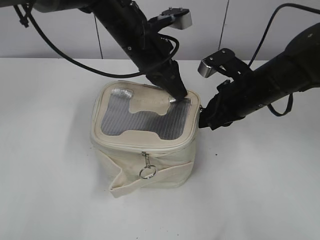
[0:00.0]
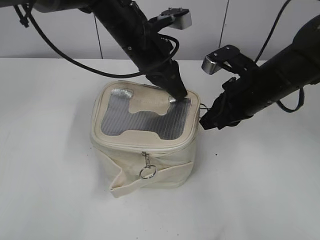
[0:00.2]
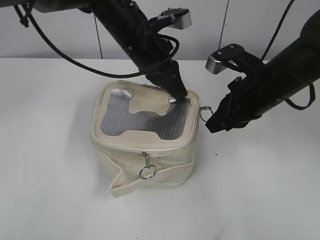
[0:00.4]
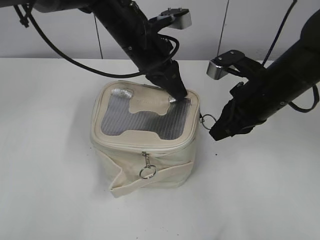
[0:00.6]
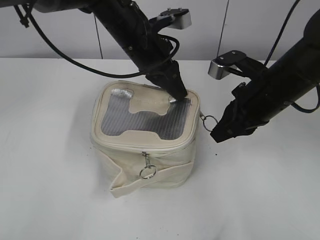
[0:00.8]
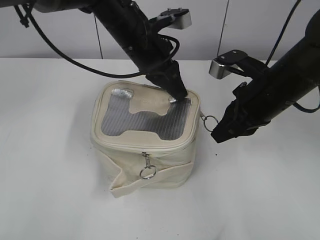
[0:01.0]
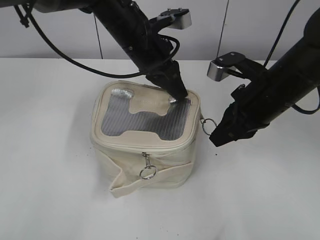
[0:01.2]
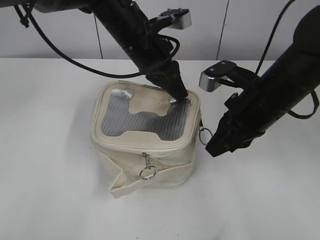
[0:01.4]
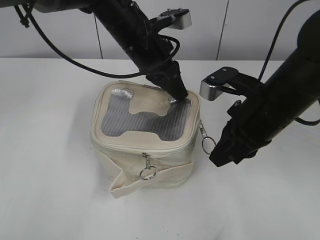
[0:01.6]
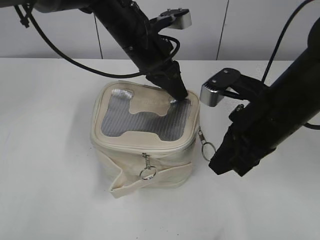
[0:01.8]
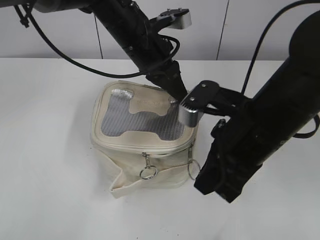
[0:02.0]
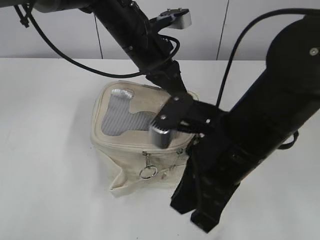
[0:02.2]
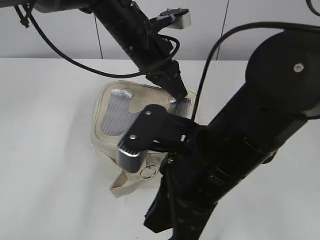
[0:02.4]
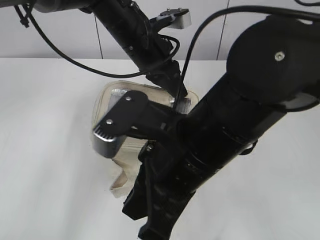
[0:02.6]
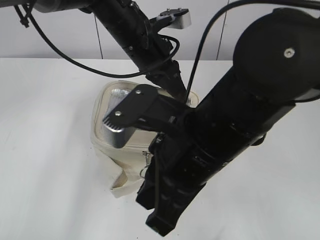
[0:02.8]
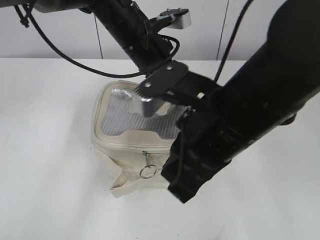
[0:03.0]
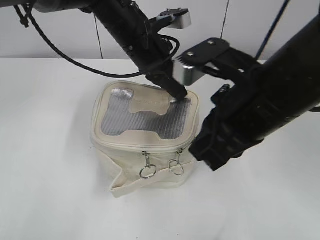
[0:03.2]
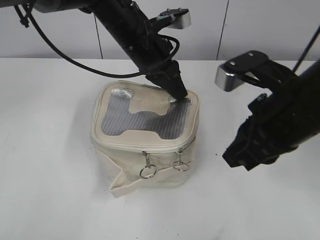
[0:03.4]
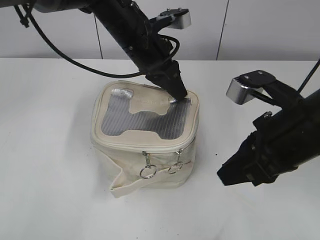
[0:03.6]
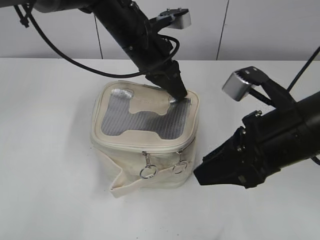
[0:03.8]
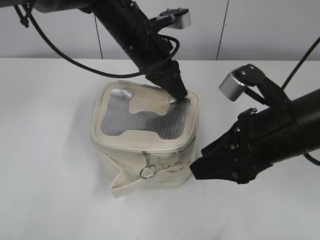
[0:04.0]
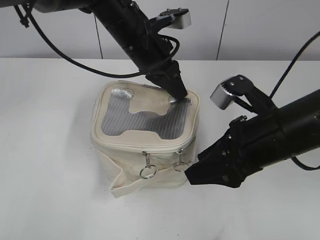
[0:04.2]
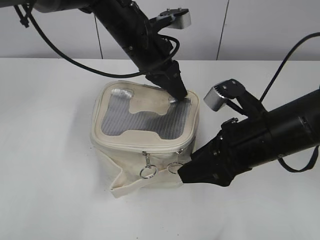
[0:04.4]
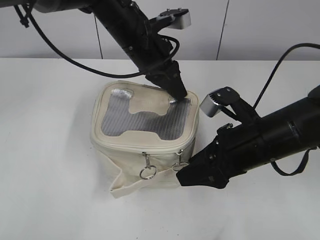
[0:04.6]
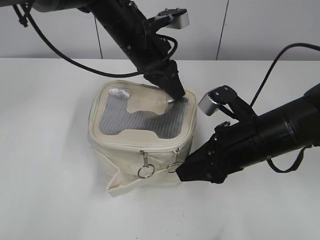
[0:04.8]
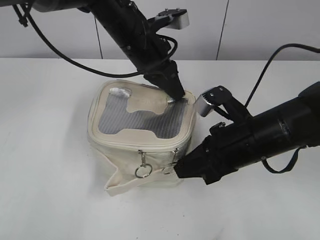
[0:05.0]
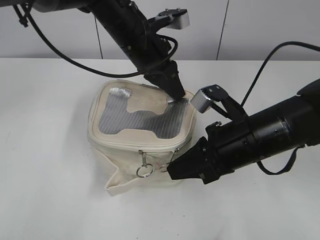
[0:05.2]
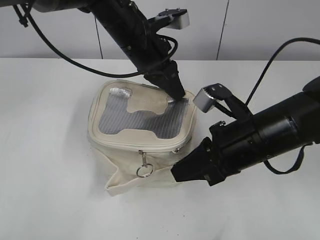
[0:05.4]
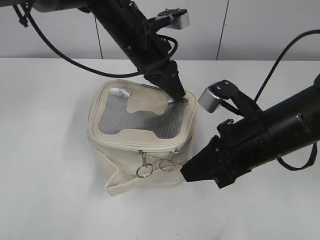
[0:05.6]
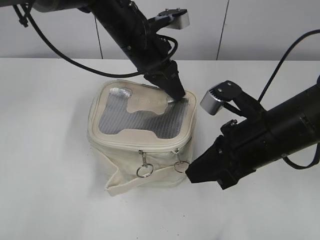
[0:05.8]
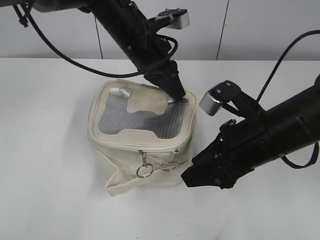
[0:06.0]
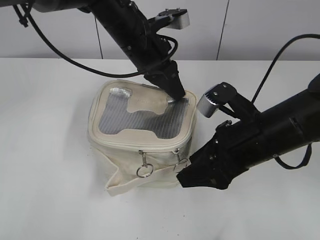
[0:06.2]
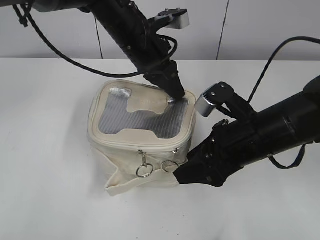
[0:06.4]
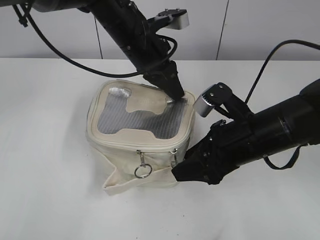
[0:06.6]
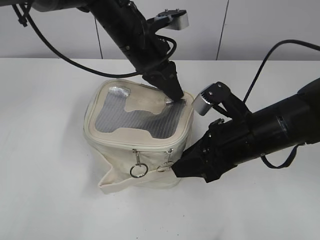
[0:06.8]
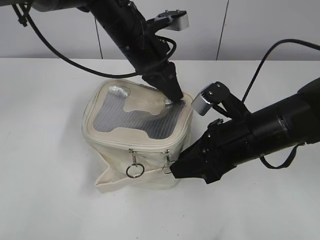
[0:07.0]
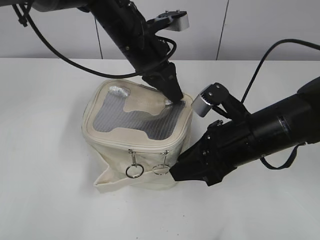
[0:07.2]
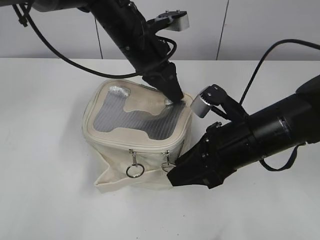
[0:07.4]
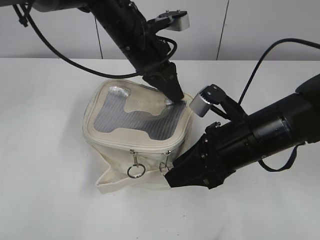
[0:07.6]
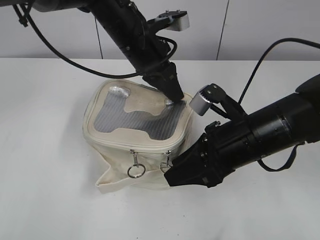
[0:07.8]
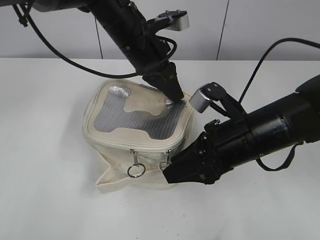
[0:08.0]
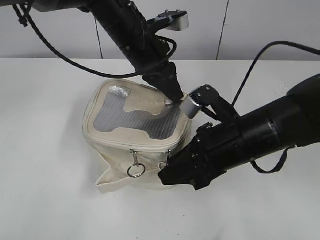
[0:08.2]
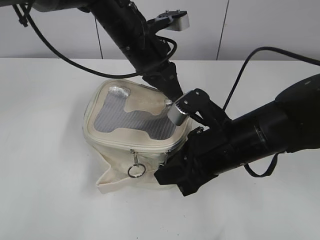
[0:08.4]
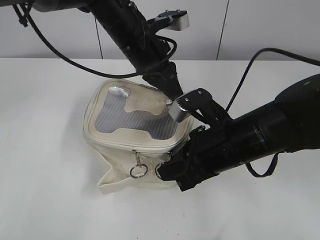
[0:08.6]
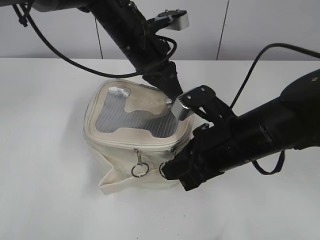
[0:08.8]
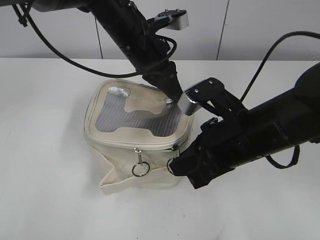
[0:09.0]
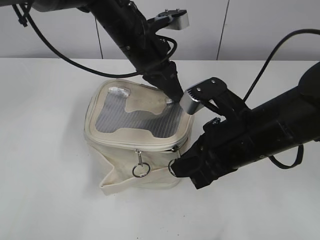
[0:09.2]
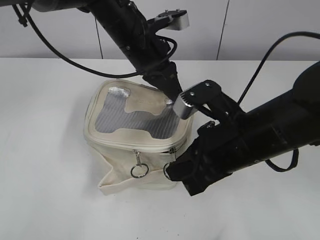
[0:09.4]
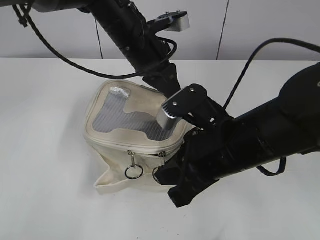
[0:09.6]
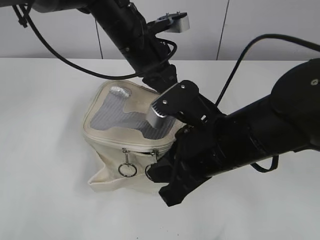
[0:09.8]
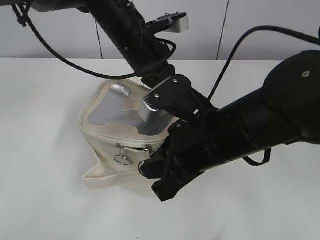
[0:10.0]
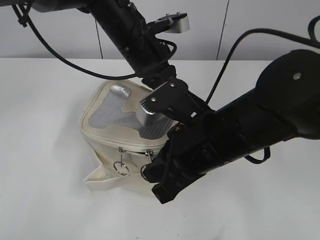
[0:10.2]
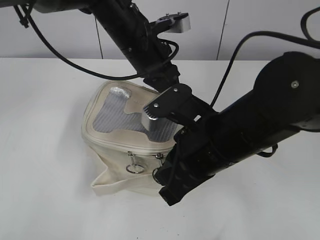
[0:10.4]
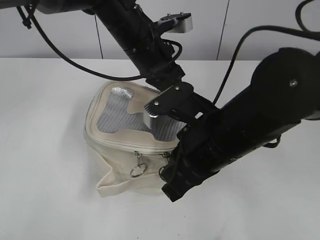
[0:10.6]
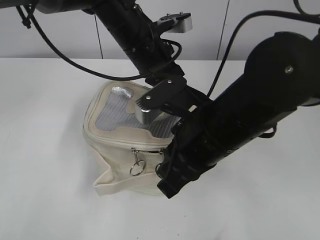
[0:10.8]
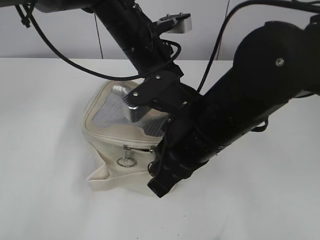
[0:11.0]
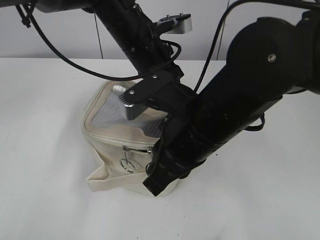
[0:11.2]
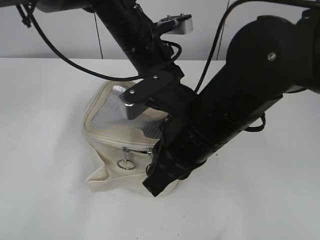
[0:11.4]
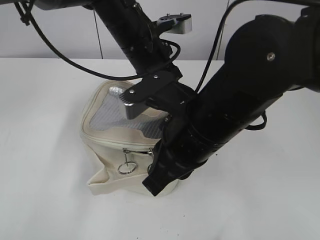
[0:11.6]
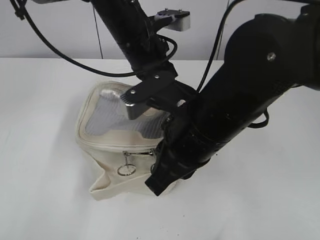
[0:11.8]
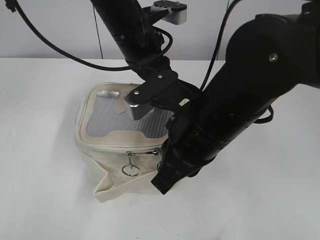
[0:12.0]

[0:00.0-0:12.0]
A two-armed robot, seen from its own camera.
0:00.0 to 0:01.6: The right gripper travels backward by about 5 cm.
0:01.6 to 0:03.0: The right gripper is displaced to the left, backward and upward by roughly 10 cm.
0:03.0 to 0:04.4: The right gripper heads downward and to the right, covering roughly 10 cm, and opens its fingers.
0:04.4 to 0:06.0: The right gripper closes, then reopens.
0:06.0 to 0:07.6: The grippers stay close to where they were, moving slightly.
0:07.6 to 0:09.0: The right gripper closes up.
0:09.0 to 0:10.4: There are only small adjustments of the grippers.

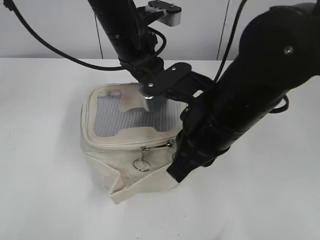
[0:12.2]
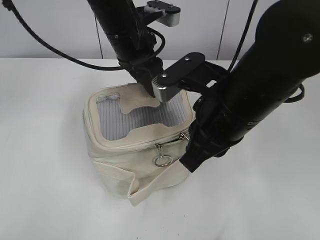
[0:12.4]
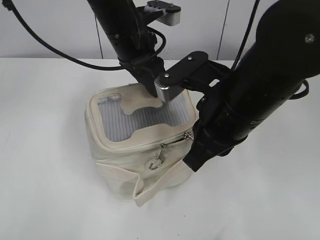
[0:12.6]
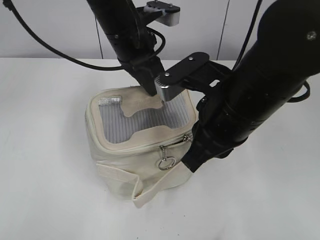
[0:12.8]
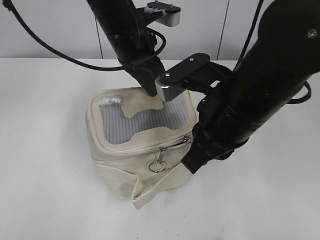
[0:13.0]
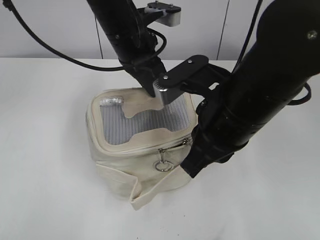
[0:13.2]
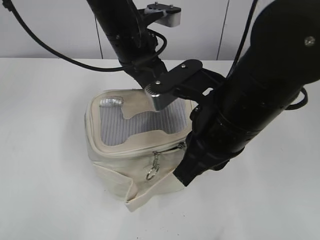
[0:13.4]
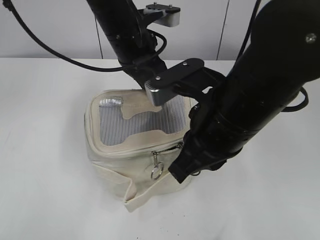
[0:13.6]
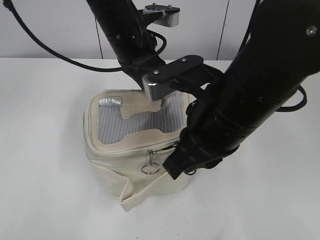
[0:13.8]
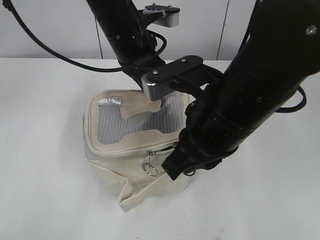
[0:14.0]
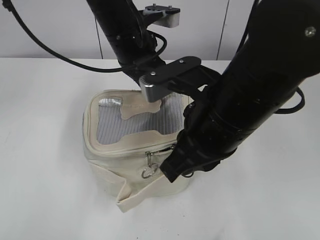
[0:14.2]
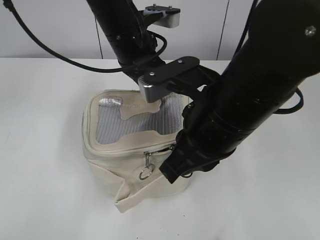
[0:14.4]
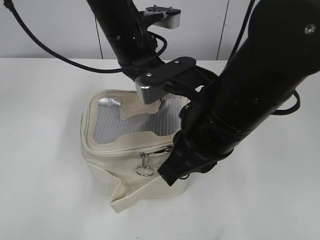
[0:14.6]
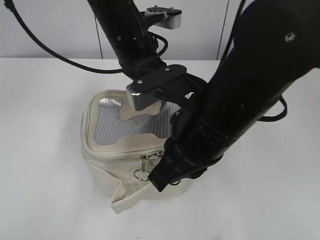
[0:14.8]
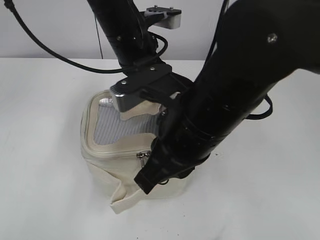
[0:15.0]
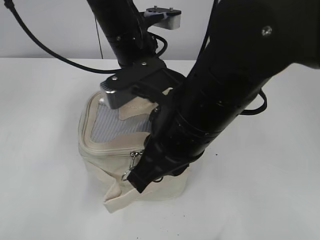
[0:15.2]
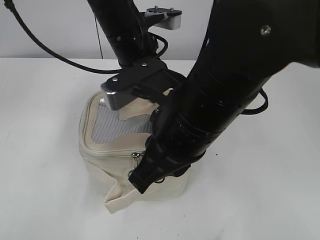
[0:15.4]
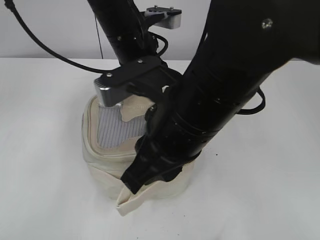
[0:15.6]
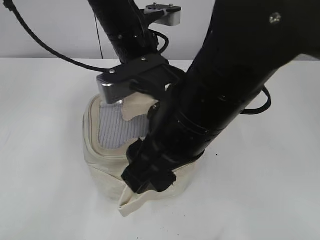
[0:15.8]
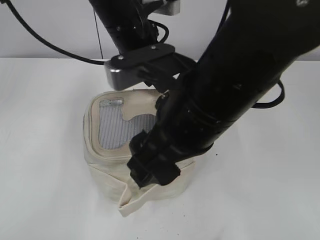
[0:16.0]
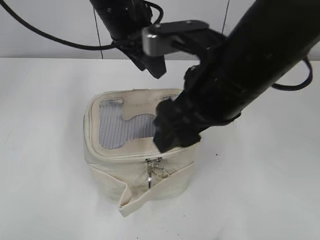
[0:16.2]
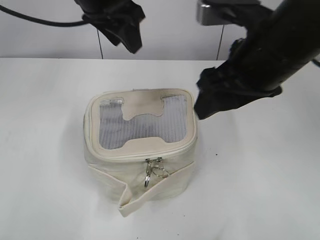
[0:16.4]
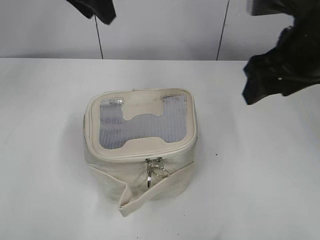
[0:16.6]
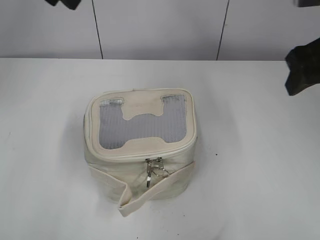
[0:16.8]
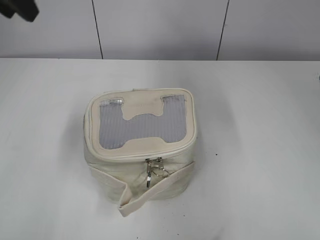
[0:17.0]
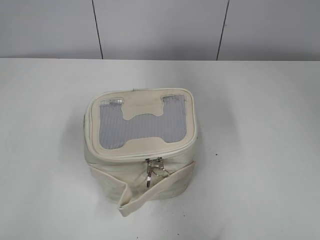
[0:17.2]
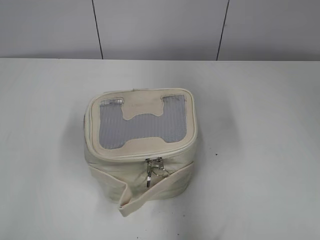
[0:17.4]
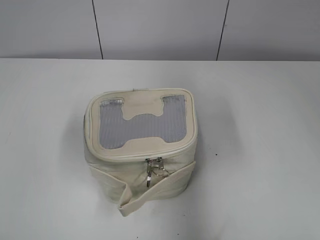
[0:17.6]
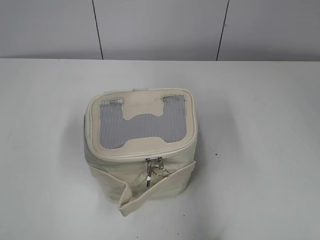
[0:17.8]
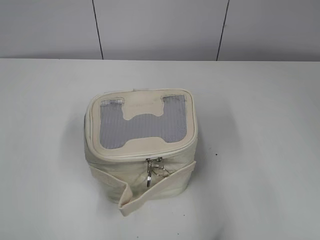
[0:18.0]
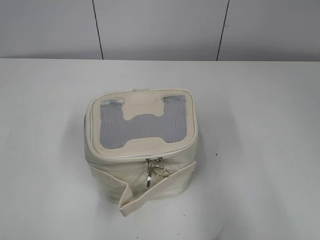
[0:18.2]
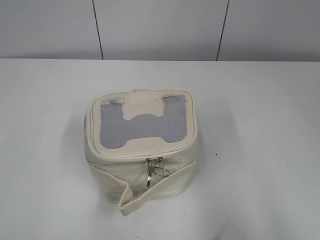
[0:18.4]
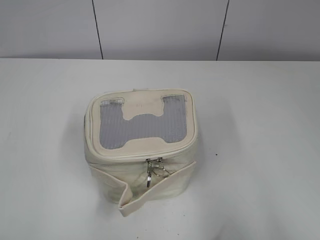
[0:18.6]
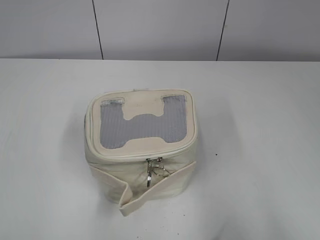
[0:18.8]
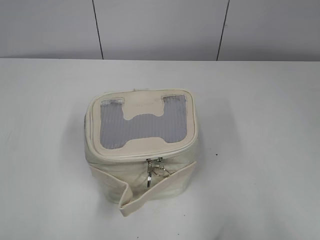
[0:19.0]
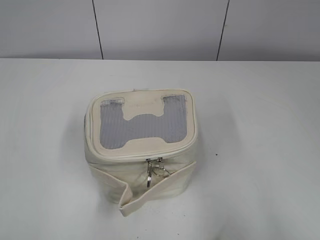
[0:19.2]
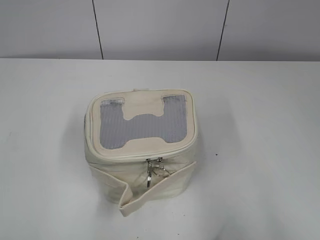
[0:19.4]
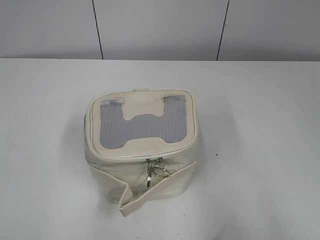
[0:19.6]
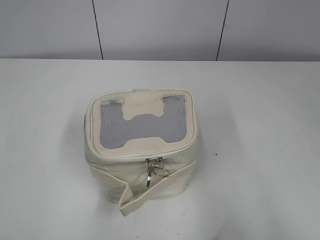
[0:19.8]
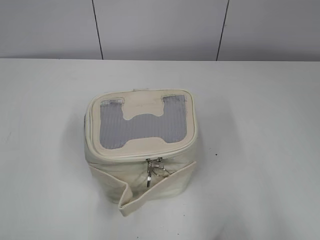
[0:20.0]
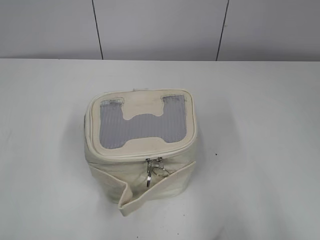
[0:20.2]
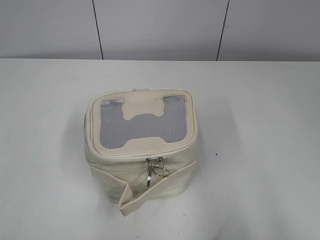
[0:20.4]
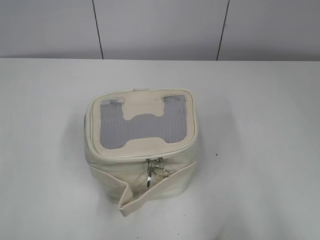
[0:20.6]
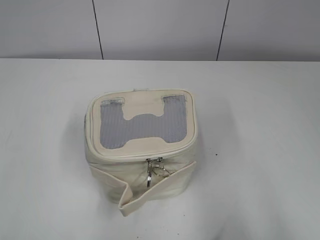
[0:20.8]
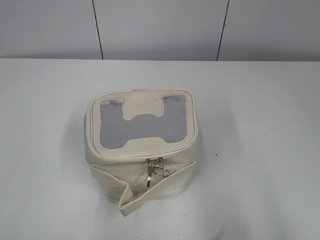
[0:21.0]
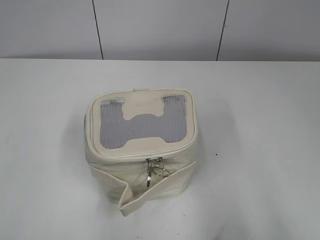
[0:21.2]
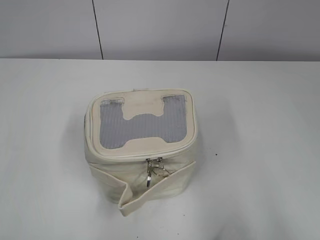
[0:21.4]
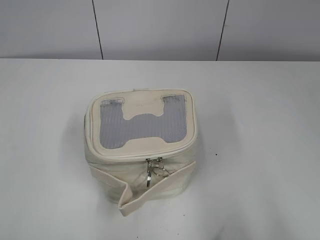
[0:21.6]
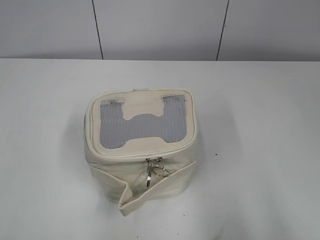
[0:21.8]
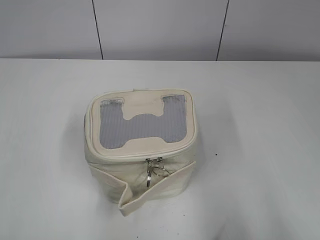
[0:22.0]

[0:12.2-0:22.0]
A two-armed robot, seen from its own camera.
Step, 0:12.2 to 0:15.8: Zip up the bag with your right hand.
0:12.2 to 0:13.6: The left gripper closes its fingers.
0:13.6 to 0:15.0: The grippers stay close to where they were, moving slightly.
0:15.0 to 0:16.4: The left gripper moves upward, some 10 cm, and opens up; the right gripper travels to the right, forward and upward by roughly 10 cm, and opens.
0:16.4 to 0:17.8: The right gripper goes roughly 20 cm to the right and backward; the left gripper shifts some 35 cm backward and to the left.
0:17.8 to 0:19.2: The right gripper travels backward and downward by about 10 cm. Meanwhile the left gripper heads backward, covering some 5 cm.
0:20.6 to 0:22.0: Both grippers stay about where they are.
